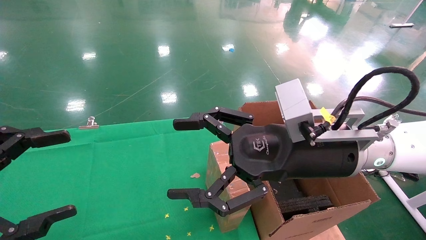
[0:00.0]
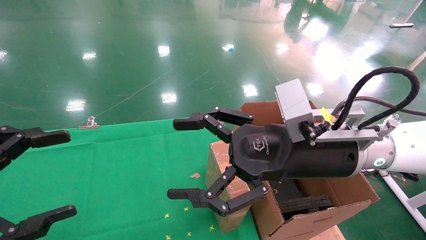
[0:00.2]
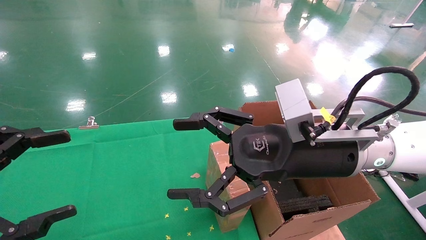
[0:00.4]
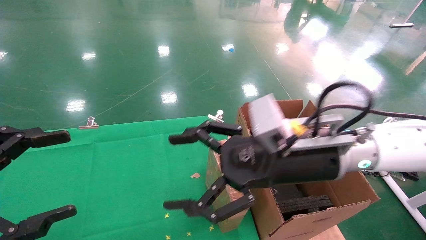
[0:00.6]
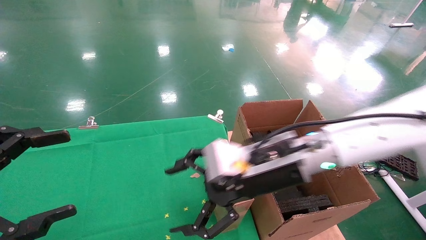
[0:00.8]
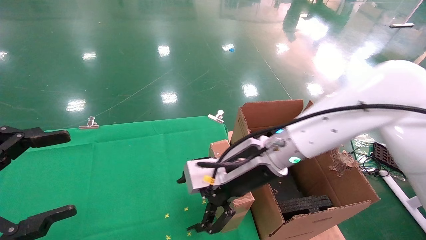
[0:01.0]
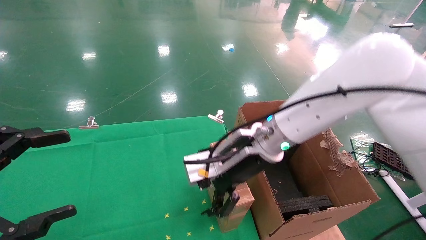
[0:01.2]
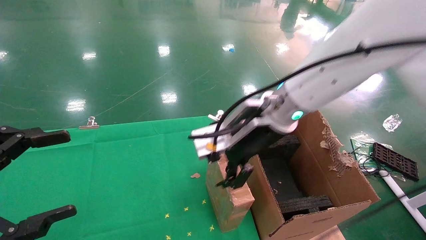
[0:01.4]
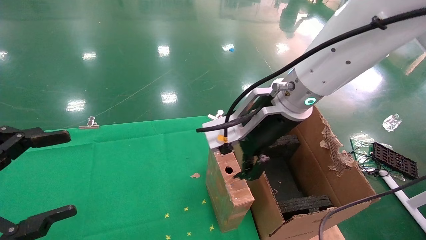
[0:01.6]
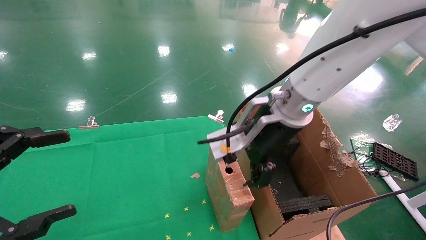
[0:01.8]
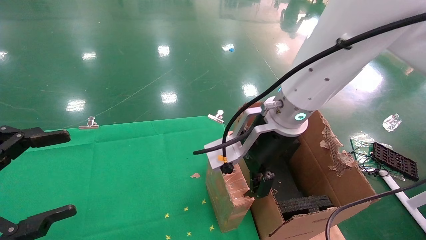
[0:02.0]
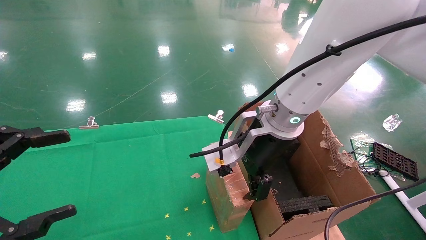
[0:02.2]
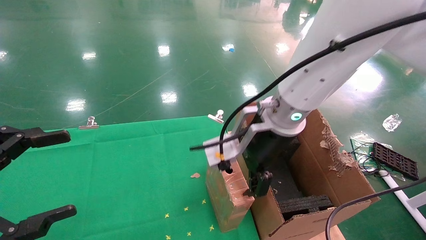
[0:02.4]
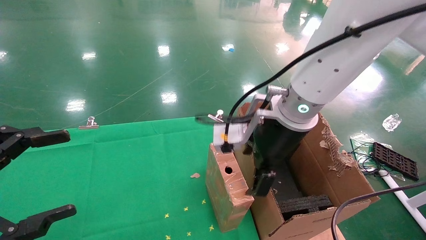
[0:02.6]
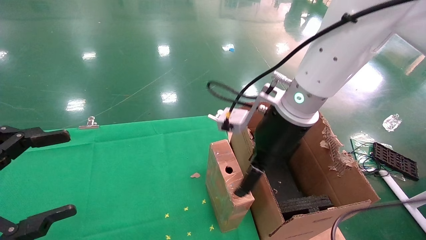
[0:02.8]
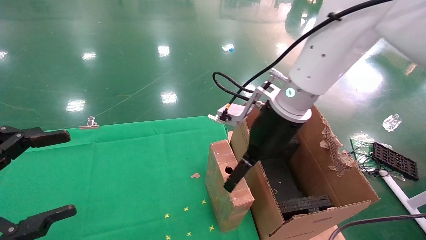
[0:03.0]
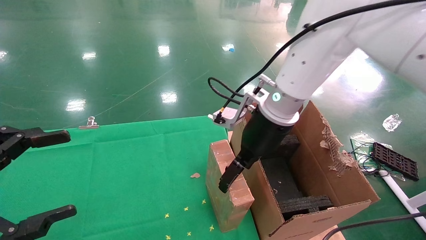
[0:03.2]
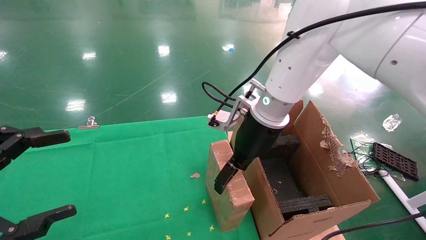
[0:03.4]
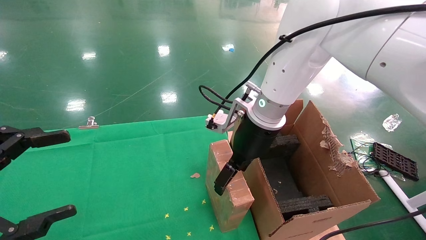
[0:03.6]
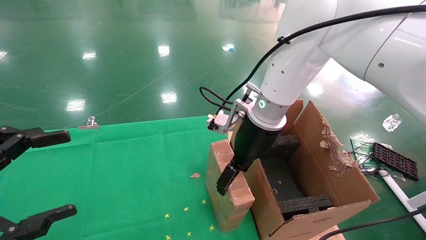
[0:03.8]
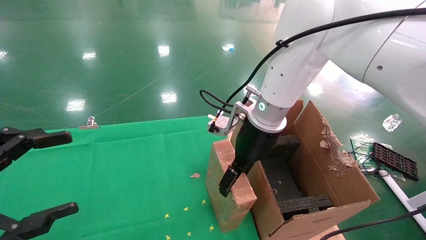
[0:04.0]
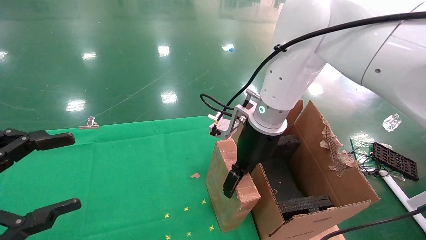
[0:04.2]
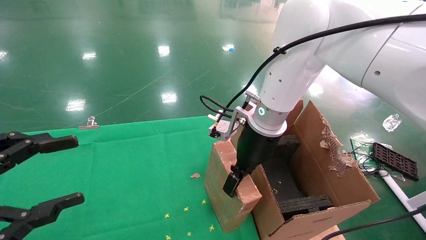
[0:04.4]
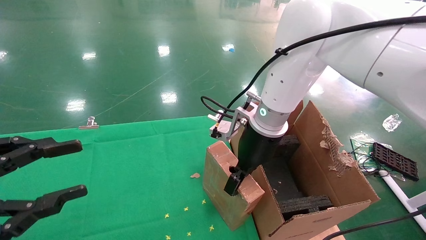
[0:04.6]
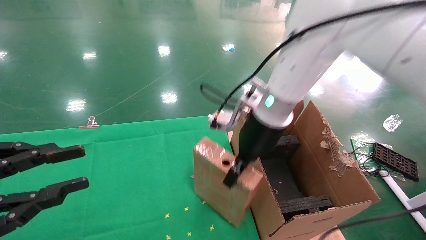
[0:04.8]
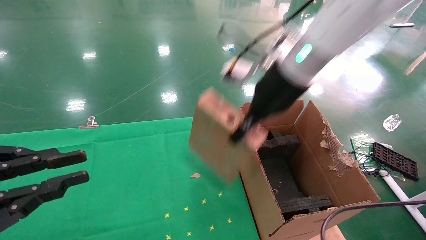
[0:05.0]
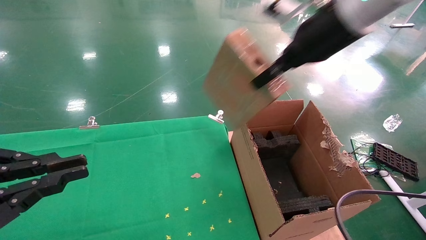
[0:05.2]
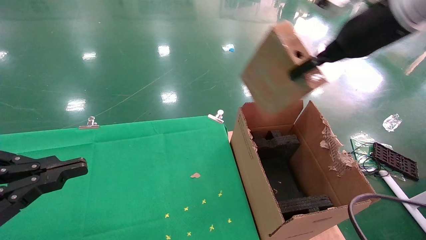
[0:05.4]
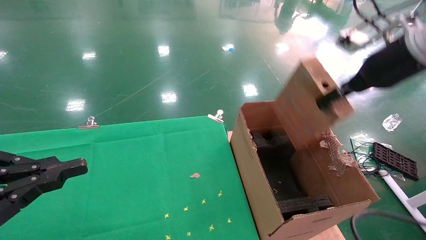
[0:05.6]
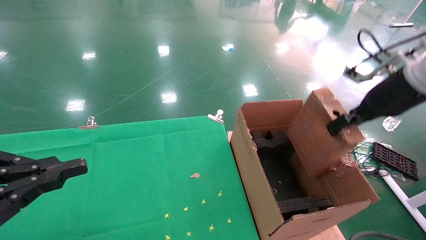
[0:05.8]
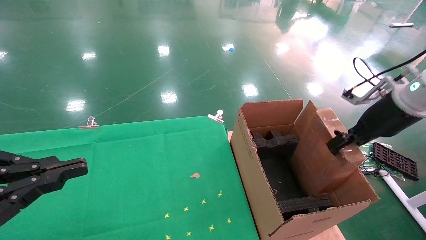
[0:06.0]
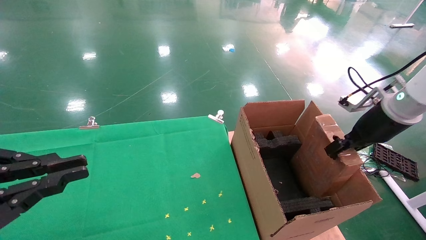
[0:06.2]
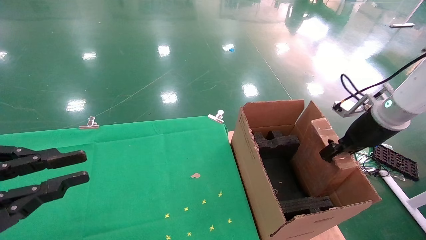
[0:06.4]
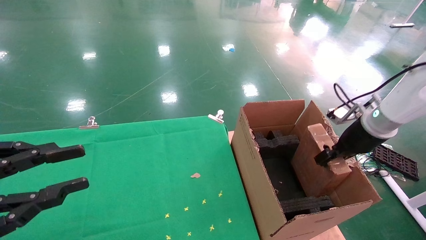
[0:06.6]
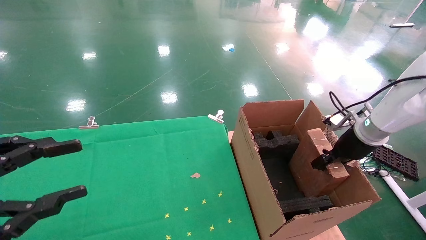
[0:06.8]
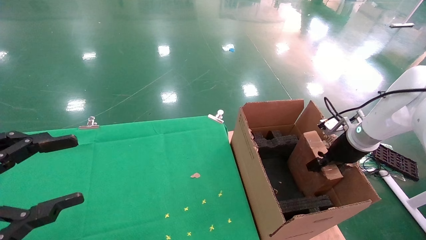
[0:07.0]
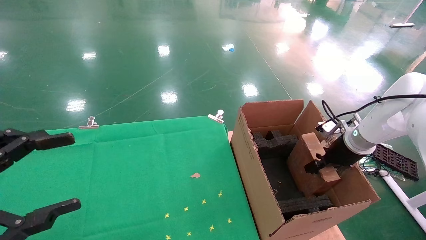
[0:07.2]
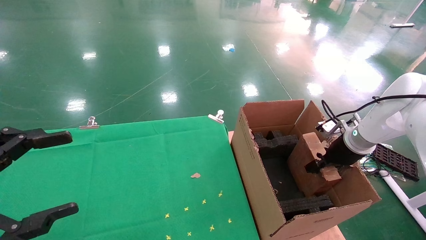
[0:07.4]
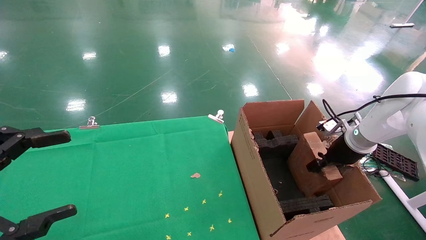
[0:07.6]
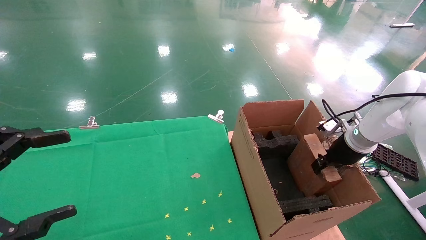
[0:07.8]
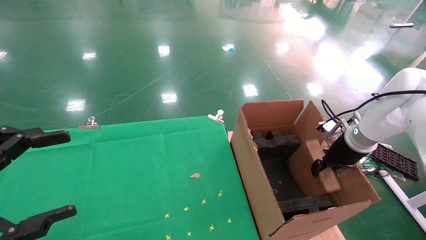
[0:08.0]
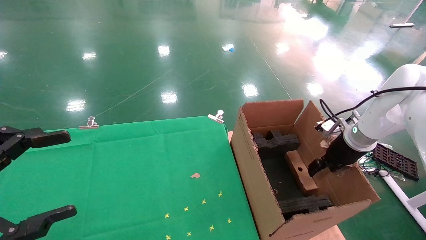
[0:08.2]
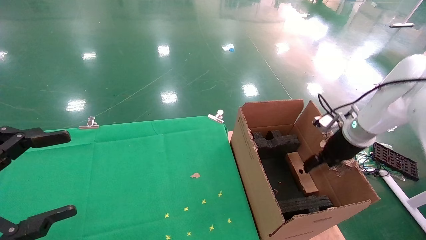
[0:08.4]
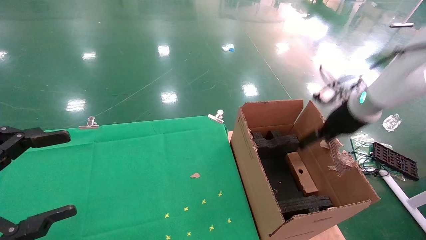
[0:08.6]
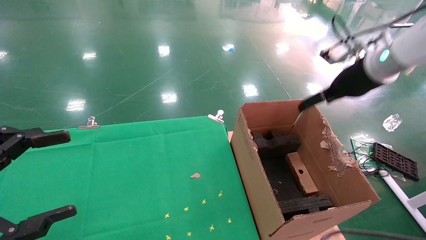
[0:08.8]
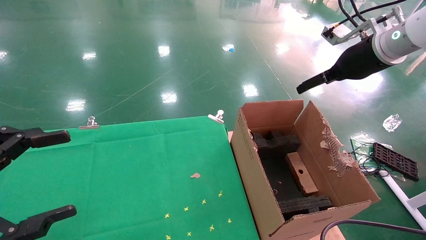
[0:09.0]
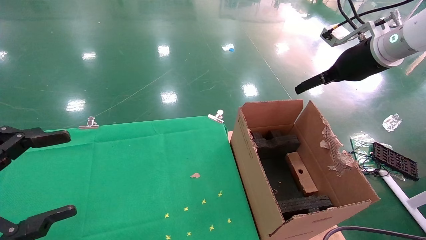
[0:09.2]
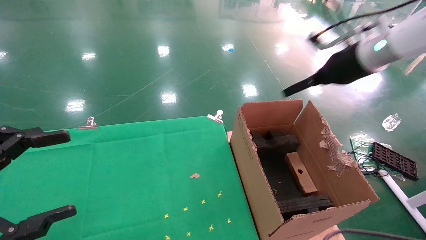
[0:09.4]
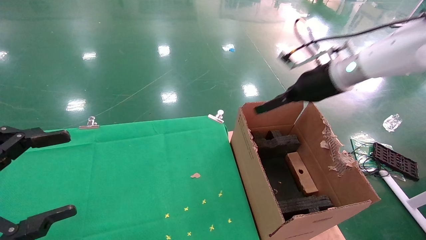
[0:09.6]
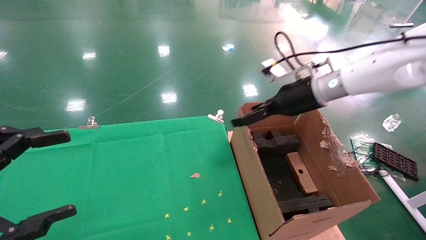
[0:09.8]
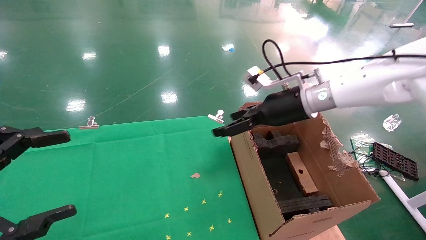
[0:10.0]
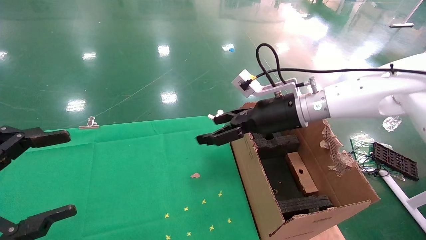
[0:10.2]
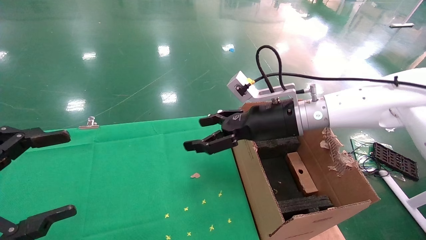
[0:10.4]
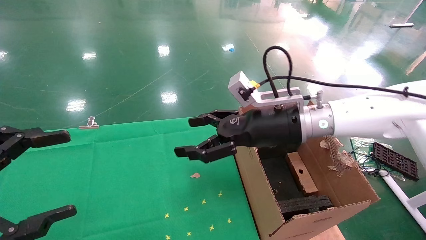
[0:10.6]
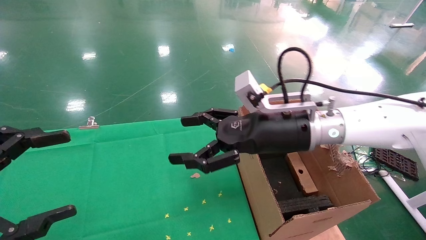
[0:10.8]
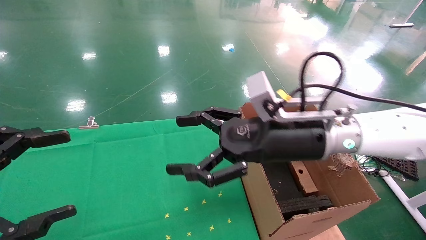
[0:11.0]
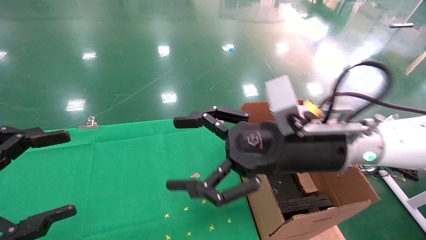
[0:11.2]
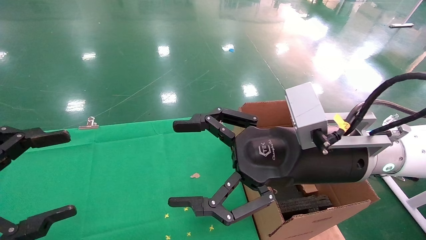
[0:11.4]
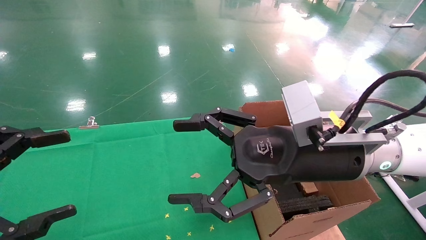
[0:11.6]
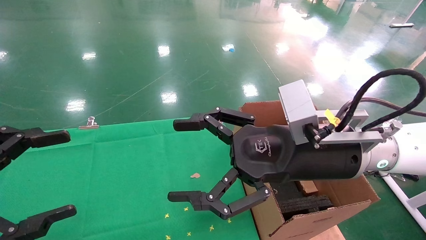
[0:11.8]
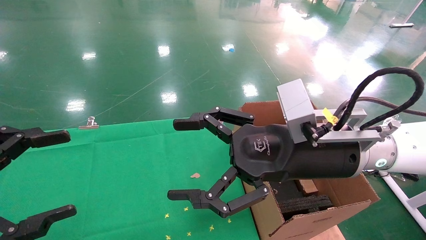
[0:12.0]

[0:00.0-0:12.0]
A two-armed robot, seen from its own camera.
Task of the whole recording: using a robotic arm to pick up a cardboard box and palace it the carton.
Step, 0:00.6 to 0:04.6: Pick up the mouse and the power cord paper box.
Step, 0:04.8 to 0:08.4: Place the mouse and the power cord paper box into the container.
0:00.0 to 0:01.6: The right gripper heads forward and to the left, covering about 10 cm.
0:03.0 to 0:04.4: The right gripper closes.
0:04.4 to 0:06.0: The left gripper closes its fingers. Meanwhile the right gripper shifts approximately 25 cm to the right, and closes.
0:06.0 to 0:07.6: The right gripper moves downward and forward, roughly 15 cm. Meanwhile the left gripper opens its fingers.
0:07.6 to 0:09.0: The right gripper heads upward, covering some 20 cm, and opens its fingers.
0:09.0 to 0:10.4: The right gripper shifts some 20 cm to the left and downward.
0:10.4 to 0:12.0: The right gripper moves backward, approximately 15 cm.

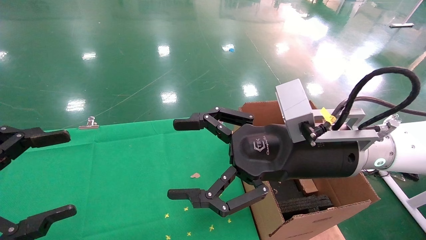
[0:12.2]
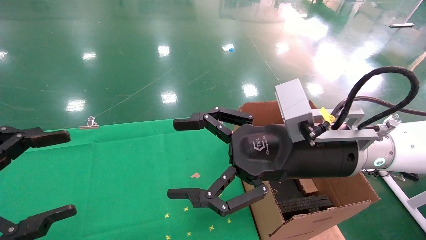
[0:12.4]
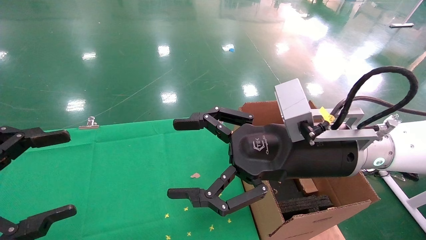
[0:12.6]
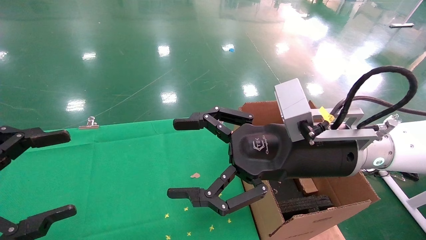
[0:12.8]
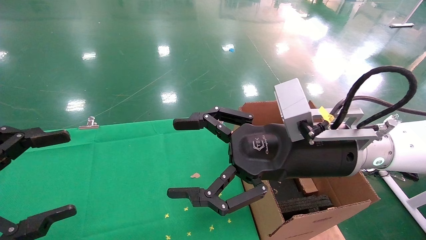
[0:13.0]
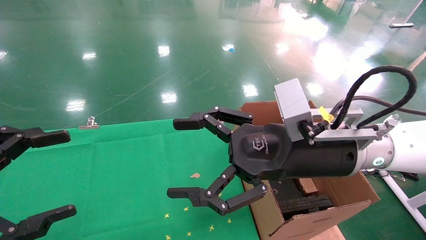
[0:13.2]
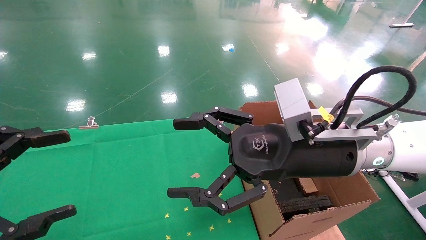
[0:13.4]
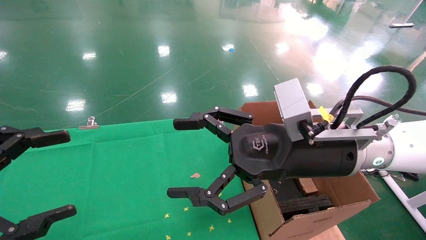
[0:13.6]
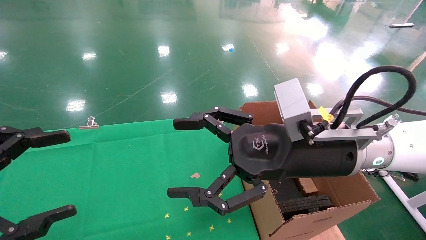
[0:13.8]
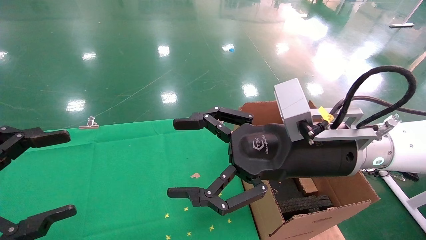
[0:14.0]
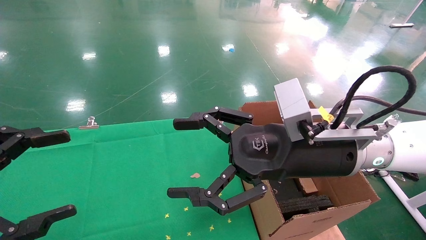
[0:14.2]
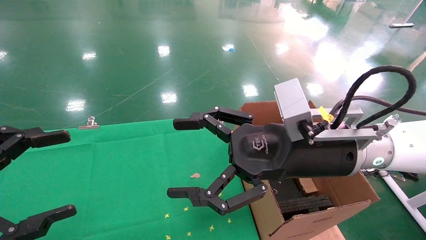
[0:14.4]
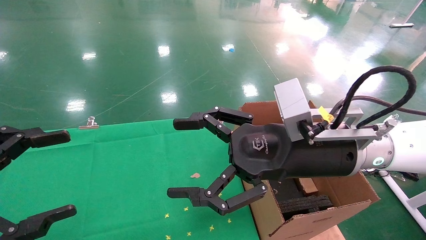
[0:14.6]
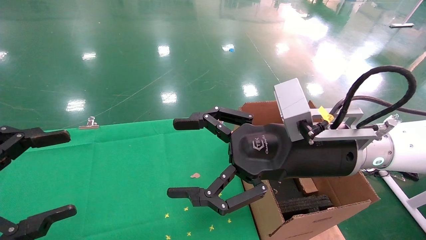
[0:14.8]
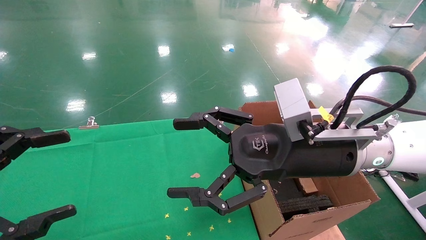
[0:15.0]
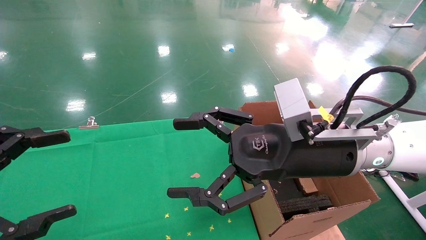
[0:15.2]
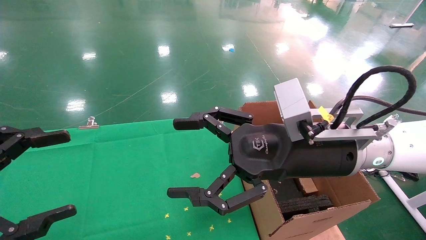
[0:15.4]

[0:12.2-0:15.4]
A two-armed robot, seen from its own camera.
Task of the whole recording: using a robotic arm to pick up a cardboard box and palace it the carton.
0:12.2 to 0:15.4: Both grippers stay about where they are.
